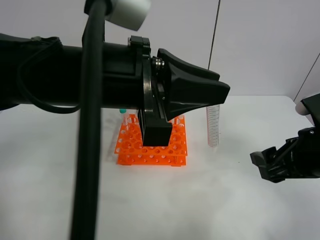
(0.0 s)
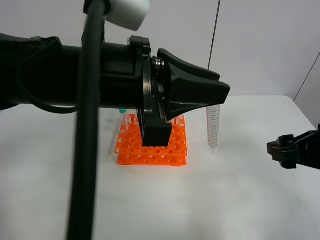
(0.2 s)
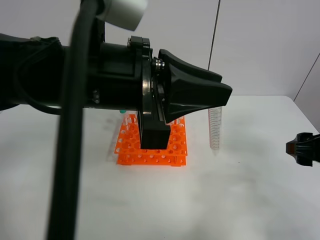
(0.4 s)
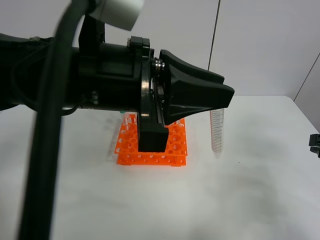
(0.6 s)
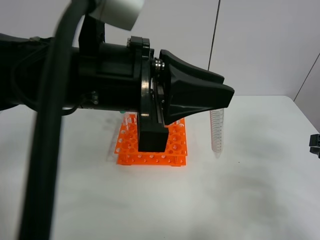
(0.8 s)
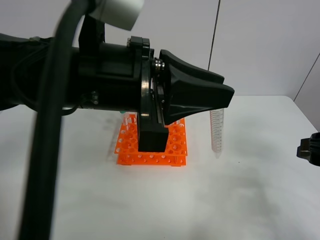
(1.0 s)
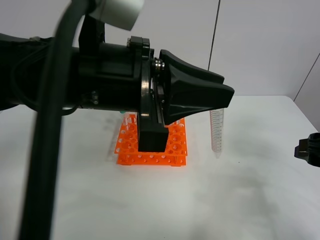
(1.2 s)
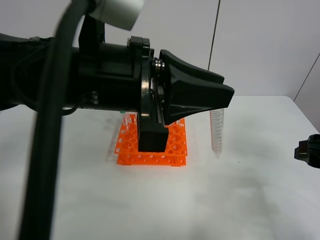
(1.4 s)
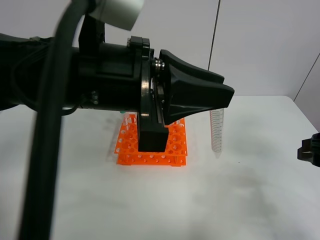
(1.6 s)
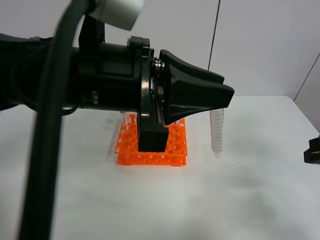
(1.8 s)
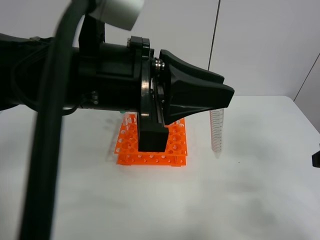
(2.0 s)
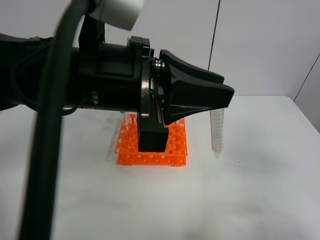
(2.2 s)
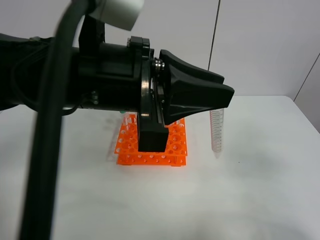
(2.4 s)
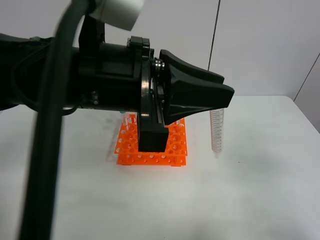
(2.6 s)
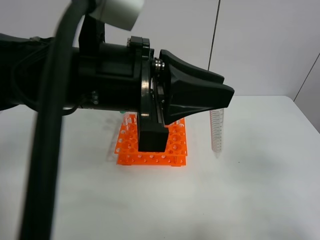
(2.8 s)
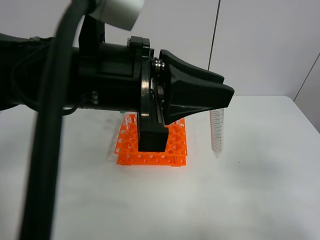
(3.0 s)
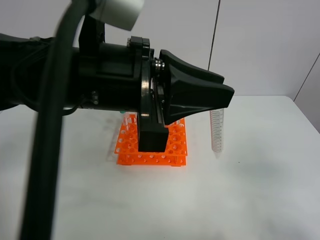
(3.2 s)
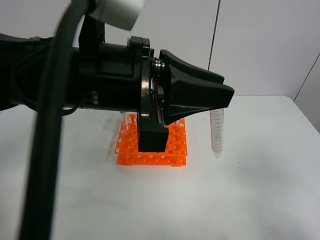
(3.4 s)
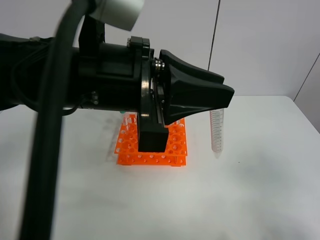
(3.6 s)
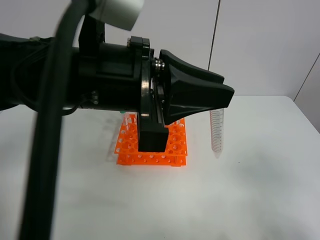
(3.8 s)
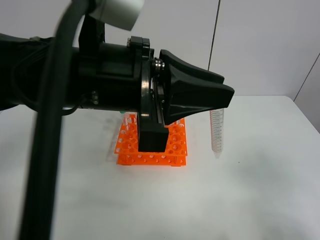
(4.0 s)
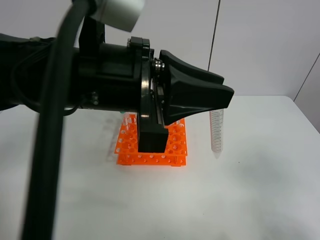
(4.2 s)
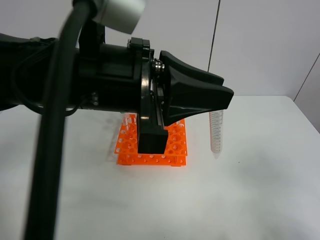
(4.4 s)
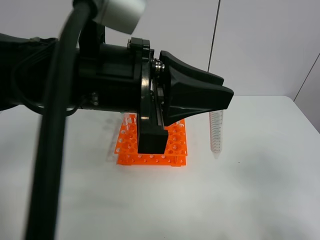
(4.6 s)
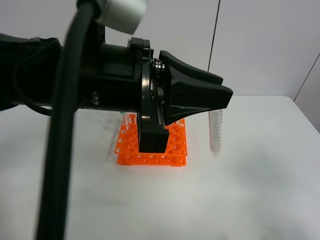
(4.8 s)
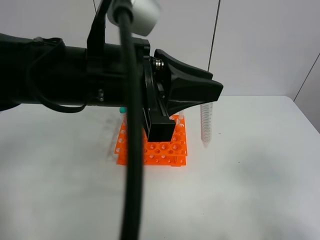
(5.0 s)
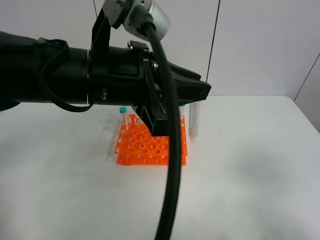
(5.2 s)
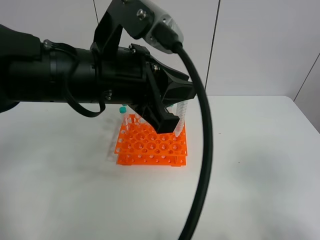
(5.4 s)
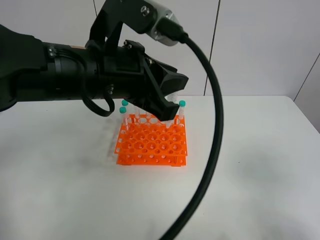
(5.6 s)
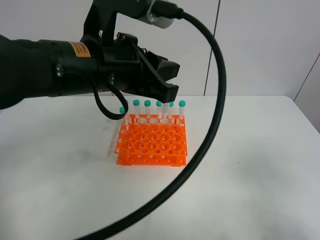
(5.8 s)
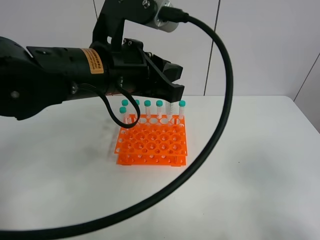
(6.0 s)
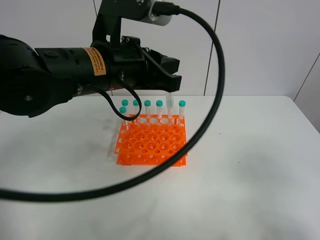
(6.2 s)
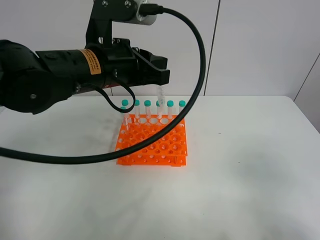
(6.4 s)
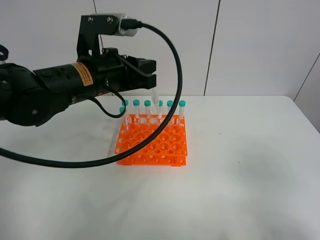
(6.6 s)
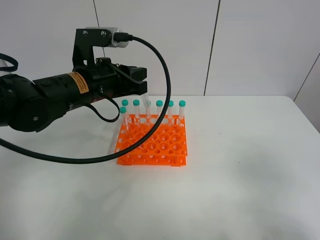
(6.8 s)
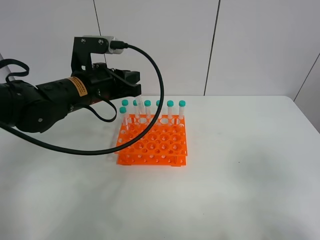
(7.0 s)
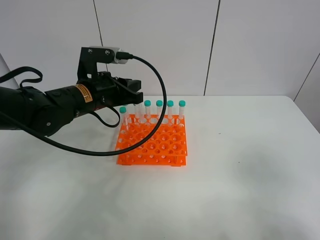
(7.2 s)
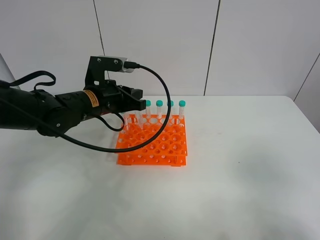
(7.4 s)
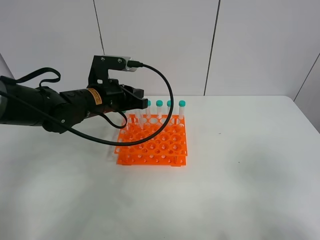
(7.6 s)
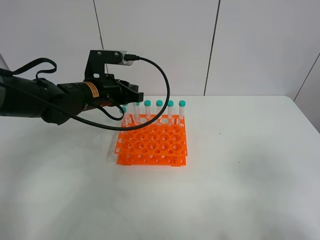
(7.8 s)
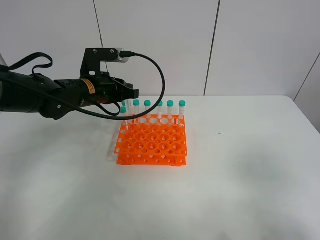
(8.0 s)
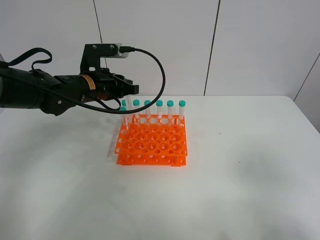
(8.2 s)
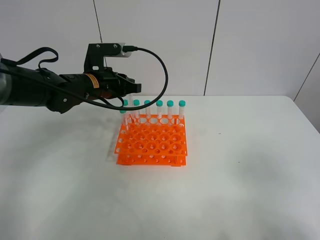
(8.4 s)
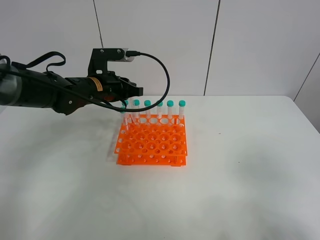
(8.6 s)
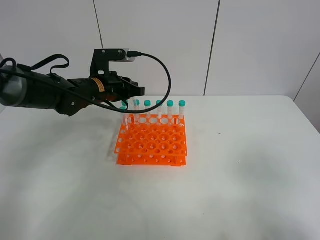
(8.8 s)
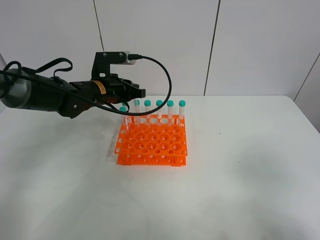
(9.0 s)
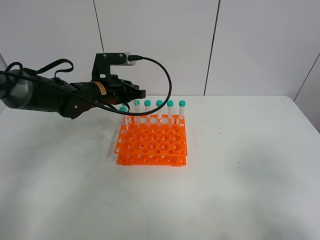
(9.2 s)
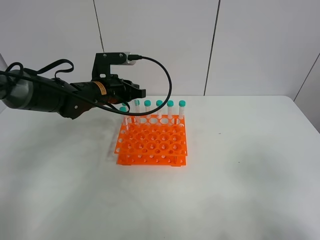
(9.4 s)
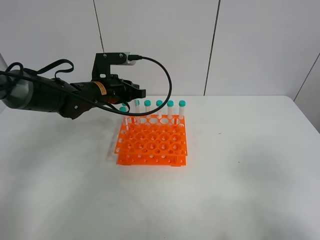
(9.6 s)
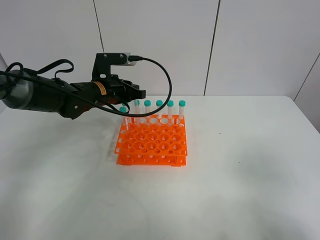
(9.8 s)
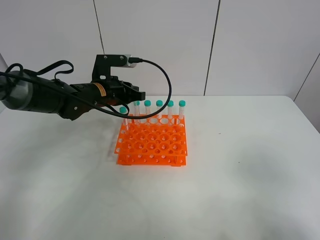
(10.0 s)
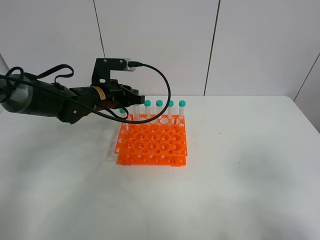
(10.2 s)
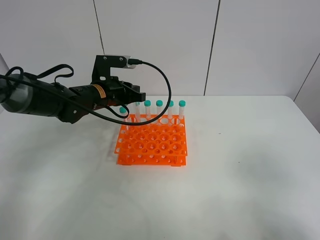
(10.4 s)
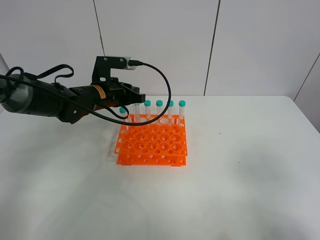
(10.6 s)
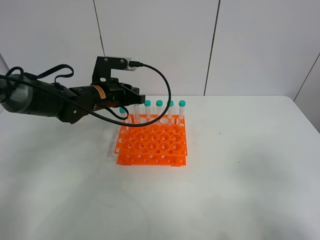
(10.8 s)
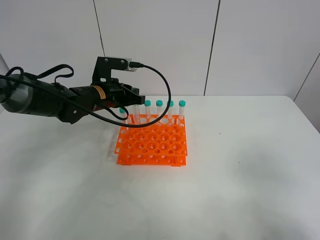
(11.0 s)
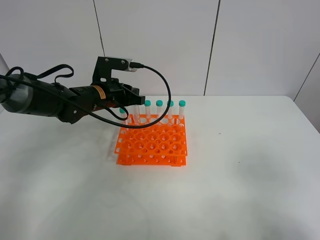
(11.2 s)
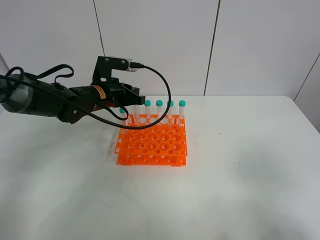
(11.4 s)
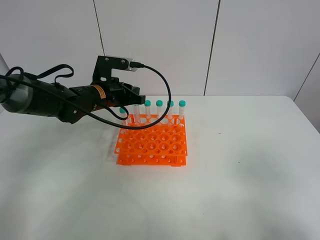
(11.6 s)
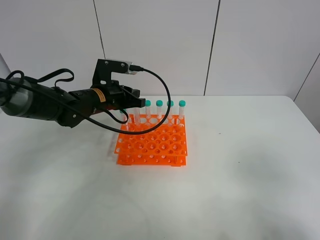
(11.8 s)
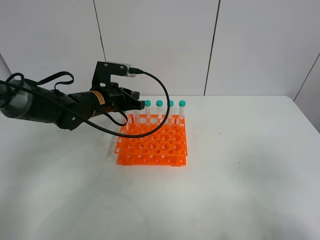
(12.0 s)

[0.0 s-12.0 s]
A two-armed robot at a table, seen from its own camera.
Task of the whole recording: Put the test tube on the table back onto the test tube rack.
0.0 to 1.6 s: The right gripper goes roughly 5 cm to the right.
1.6 to 3.0 s: The right gripper is displaced backward by about 10 cm.
4.4 to 6.0 s: The left gripper changes place by some 5 cm.
6.0 to 7.6 s: The left gripper goes roughly 15 cm downward, forward and to the left.
7.6 to 9.0 s: The grippers make only small movements.
9.0 to 10.4 s: Neither gripper changes place.
10.4 to 12.0 s: Both grippers stay about where they are.

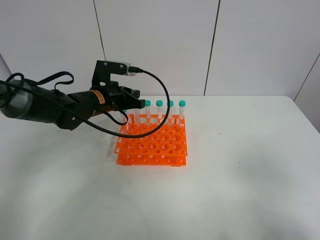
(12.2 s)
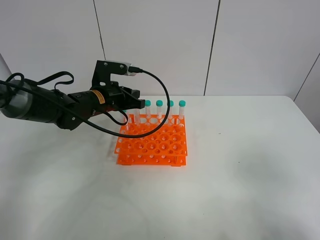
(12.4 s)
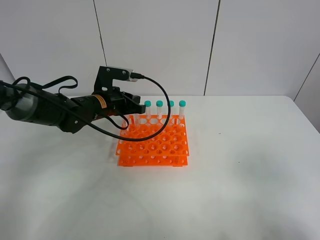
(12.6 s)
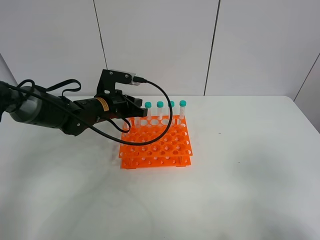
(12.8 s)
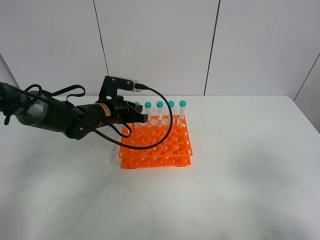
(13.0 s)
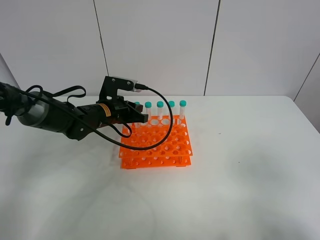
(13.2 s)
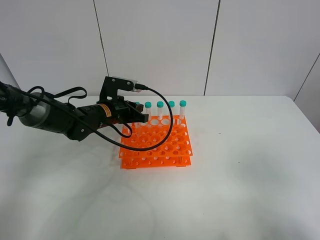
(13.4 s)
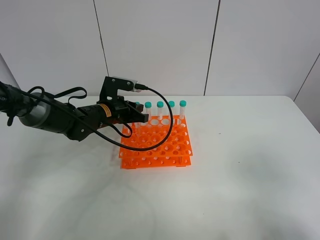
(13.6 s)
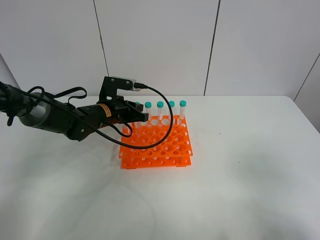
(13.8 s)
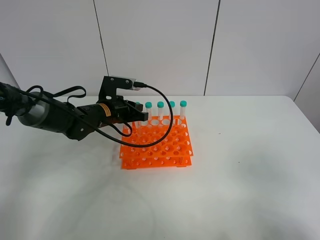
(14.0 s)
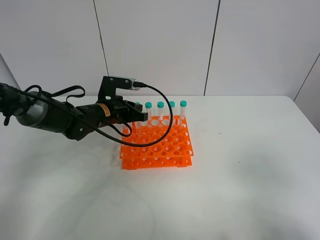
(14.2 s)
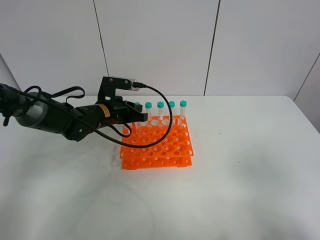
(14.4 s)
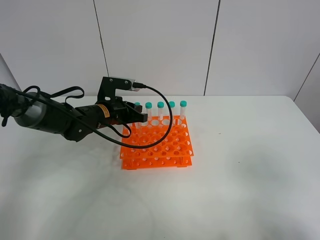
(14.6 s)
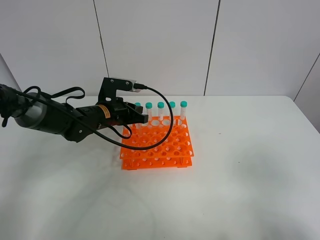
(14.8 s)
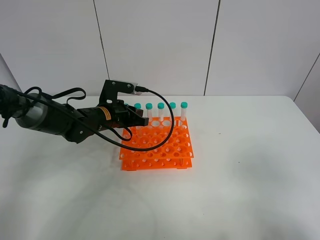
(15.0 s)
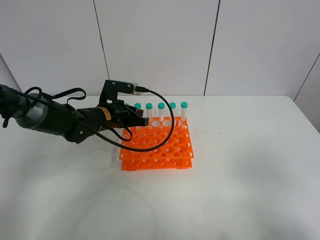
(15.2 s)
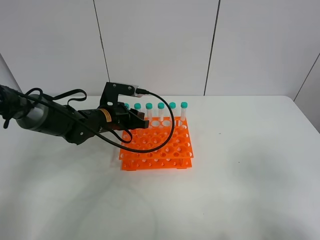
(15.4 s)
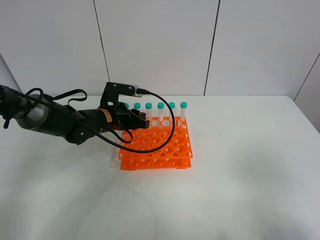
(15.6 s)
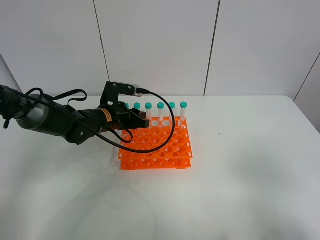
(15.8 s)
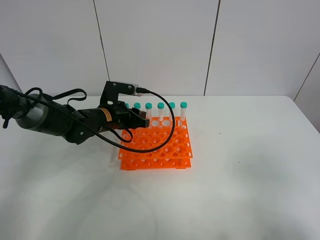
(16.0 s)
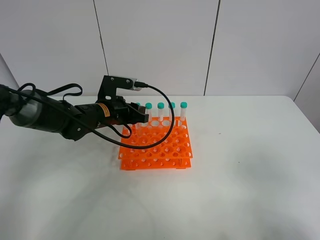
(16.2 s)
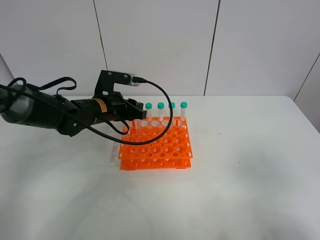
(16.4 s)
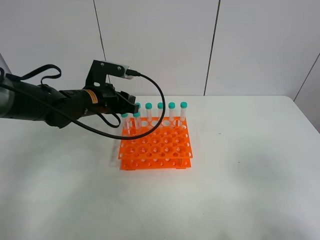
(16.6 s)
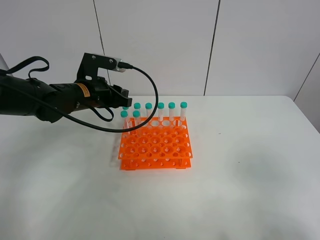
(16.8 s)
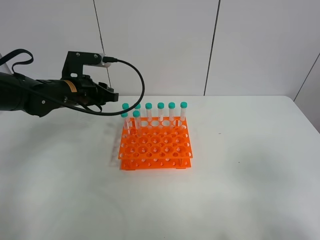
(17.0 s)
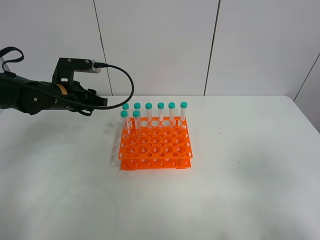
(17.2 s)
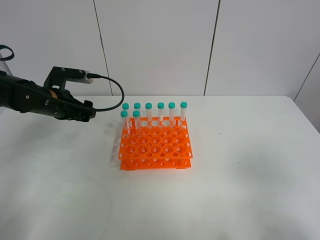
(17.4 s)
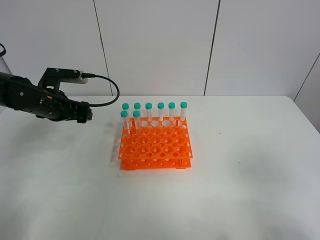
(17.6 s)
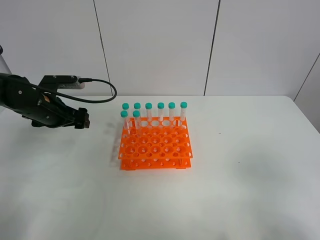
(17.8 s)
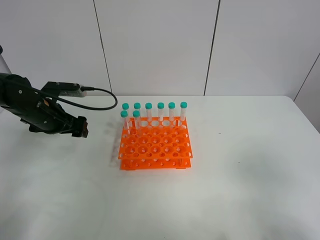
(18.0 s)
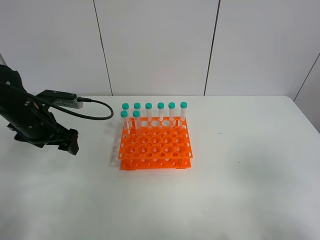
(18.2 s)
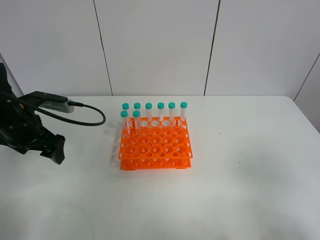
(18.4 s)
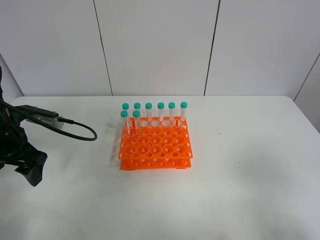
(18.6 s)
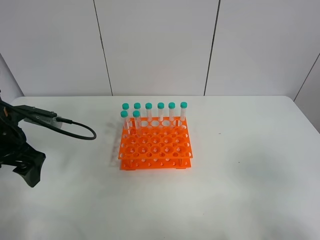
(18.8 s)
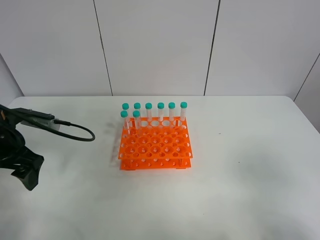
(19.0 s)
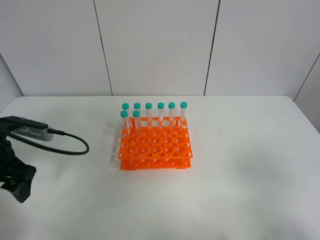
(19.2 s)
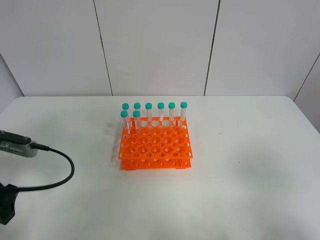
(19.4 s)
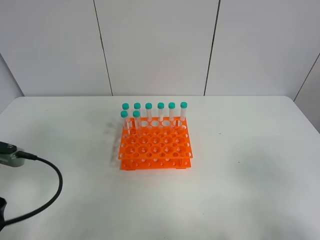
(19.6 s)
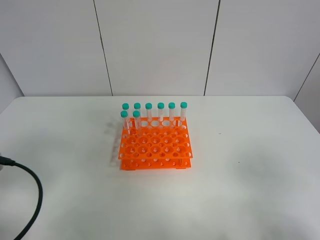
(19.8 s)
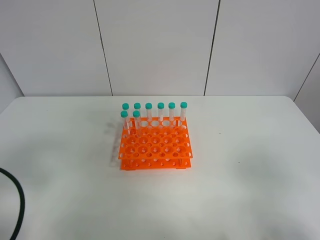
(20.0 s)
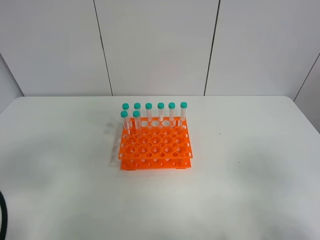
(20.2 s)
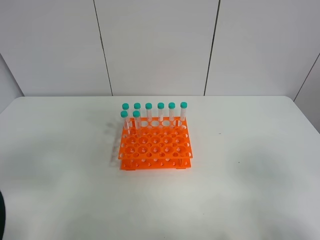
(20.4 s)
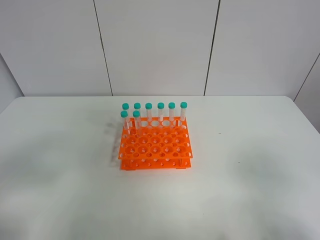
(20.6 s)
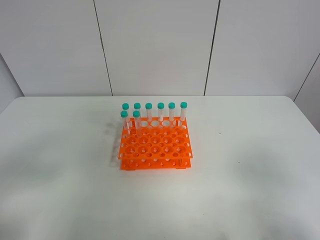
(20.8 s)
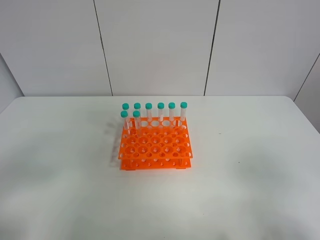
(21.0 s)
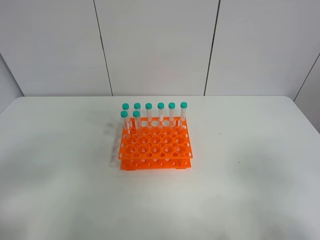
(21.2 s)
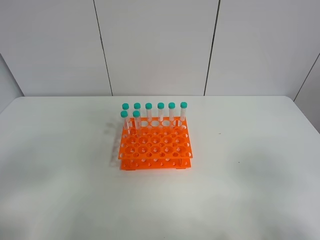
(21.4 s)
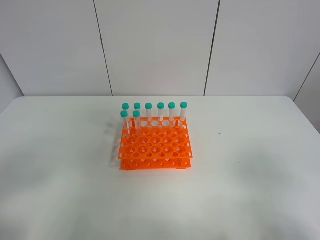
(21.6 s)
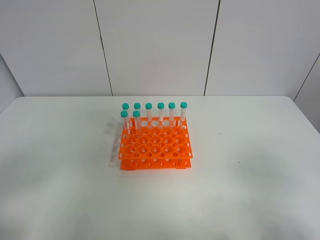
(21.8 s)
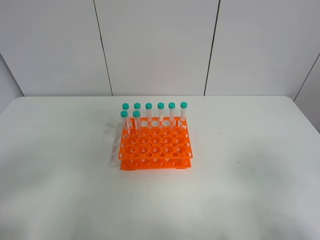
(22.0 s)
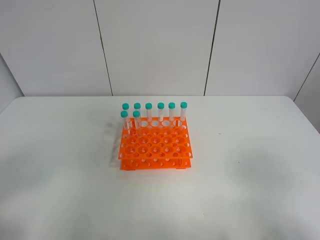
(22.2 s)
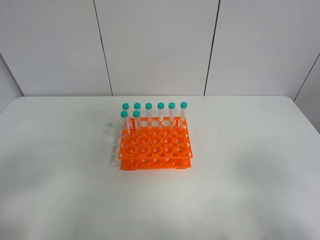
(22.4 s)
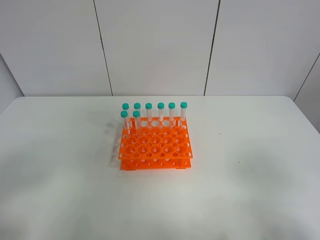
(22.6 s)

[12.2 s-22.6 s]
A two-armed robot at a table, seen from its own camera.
Task of the whole recording: Put the test tube on the table back onto the test tube rack.
Step, 12.2 to 17.0 s: Place the test tube on the test tube rack with the left gripper.
12.2 to 13.6 s: There are only small adjustments of the grippers.
13.6 to 15.2 s: Neither gripper changes place.
15.2 to 16.6 s: The left gripper moves upward, approximately 5 cm.
16.6 to 18.2 s: The left gripper goes approximately 10 cm to the left and backward, and opens.
18.2 to 19.6 s: The left gripper goes some 15 cm backward.
19.6 to 21.2 s: The left gripper moves backward, about 10 cm.
